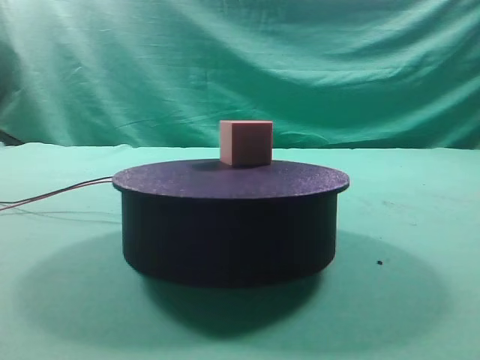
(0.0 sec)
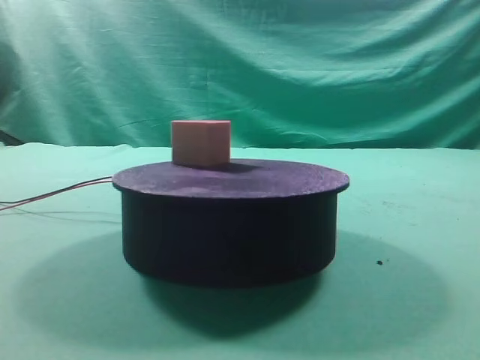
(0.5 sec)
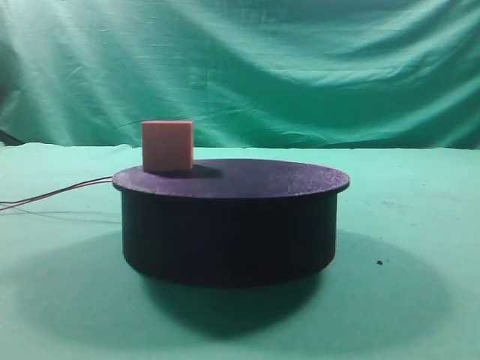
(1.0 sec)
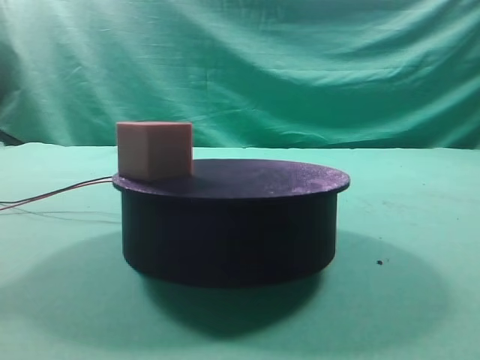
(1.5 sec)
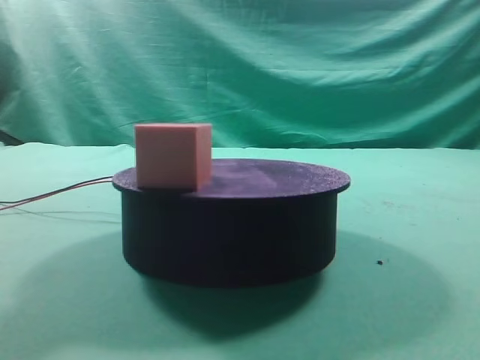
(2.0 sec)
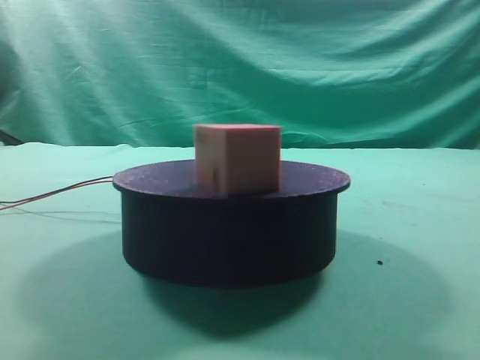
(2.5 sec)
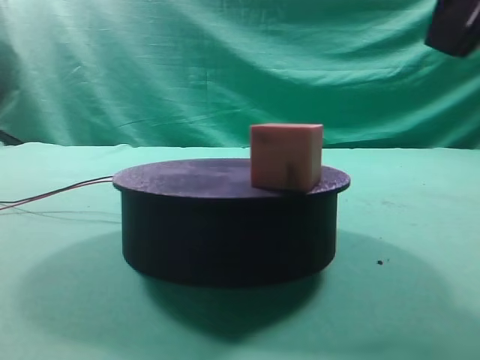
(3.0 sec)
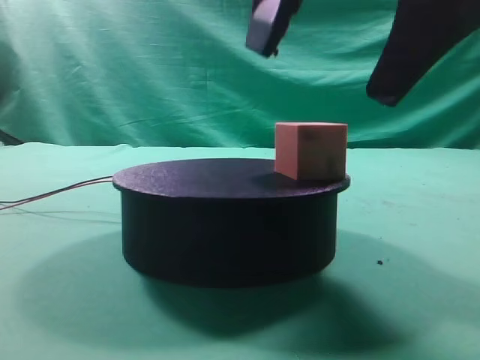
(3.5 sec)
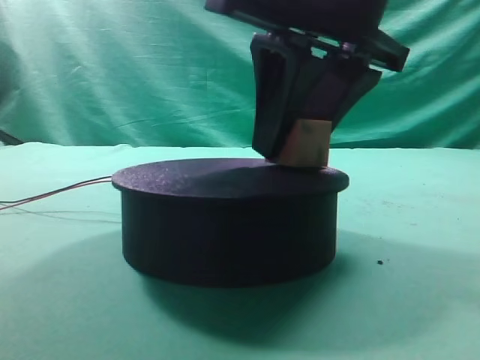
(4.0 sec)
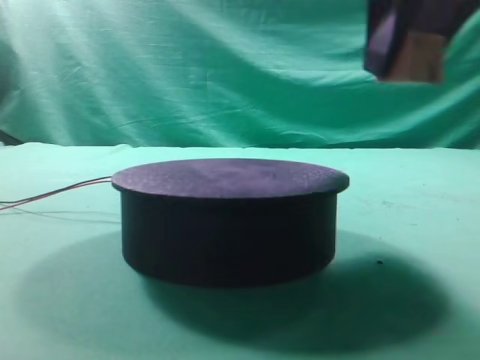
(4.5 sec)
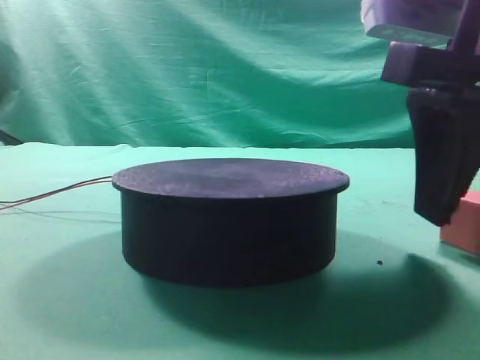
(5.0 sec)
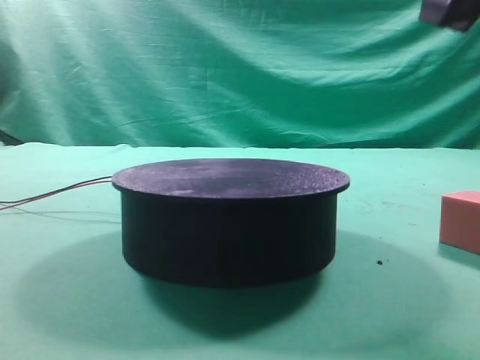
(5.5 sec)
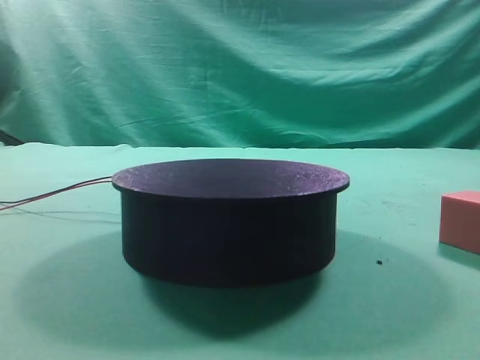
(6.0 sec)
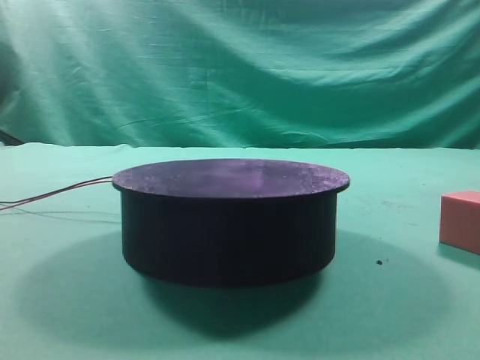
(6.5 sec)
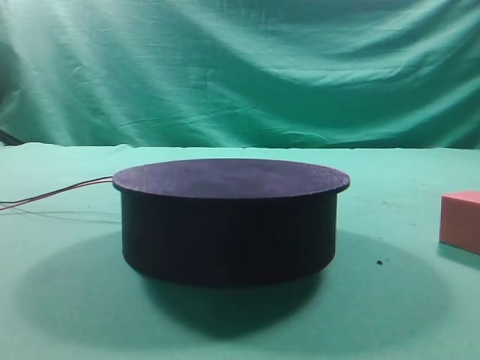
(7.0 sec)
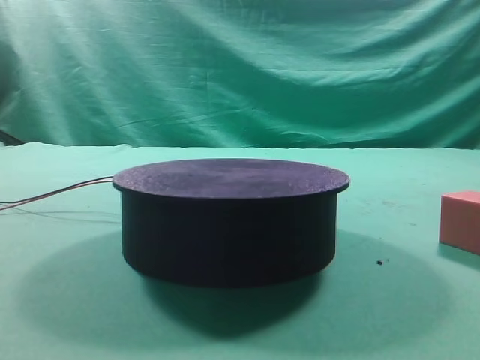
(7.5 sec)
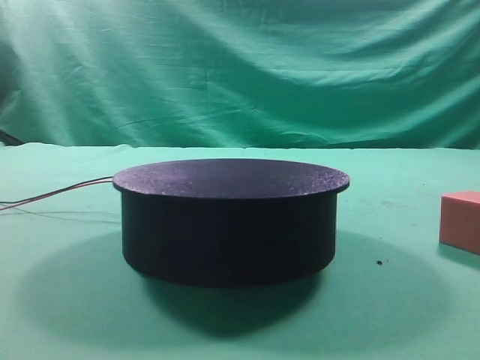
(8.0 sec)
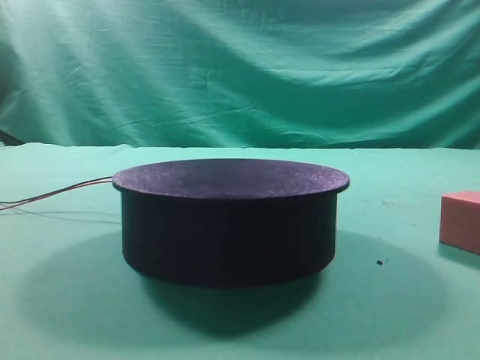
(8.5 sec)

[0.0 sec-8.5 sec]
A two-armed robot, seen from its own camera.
Task of the whole recording: grasp the rotating cube-shaped block on the turntable and place it on the table.
Step, 0.0 sec to 4.0 sec: Grasp the rotating cube-shaped block on the turntable.
Step, 4.5 sec to 5.0 sec: Place the cube on the desk.

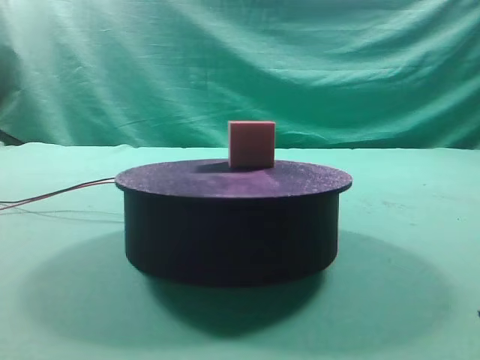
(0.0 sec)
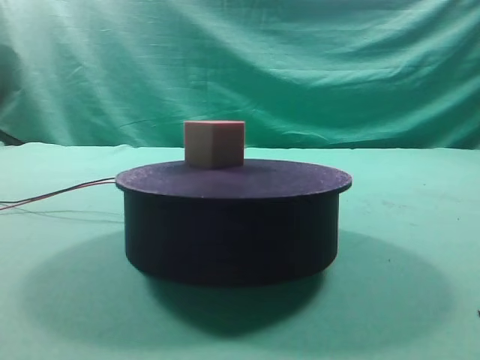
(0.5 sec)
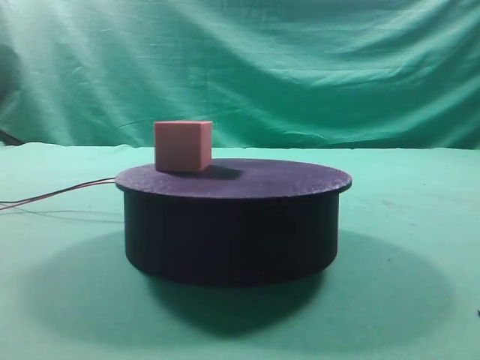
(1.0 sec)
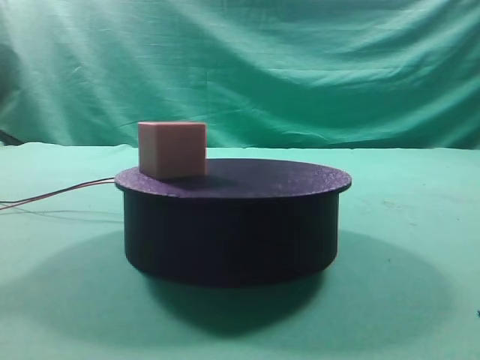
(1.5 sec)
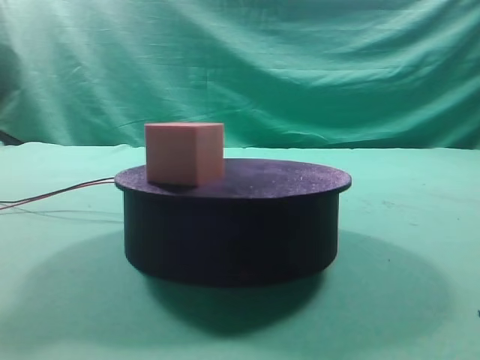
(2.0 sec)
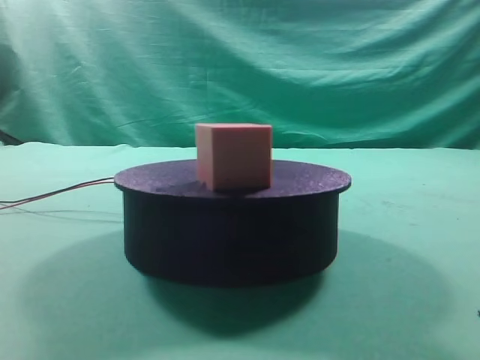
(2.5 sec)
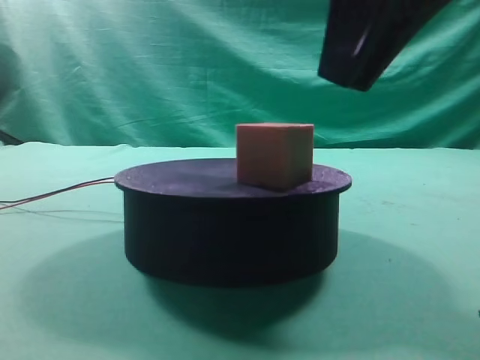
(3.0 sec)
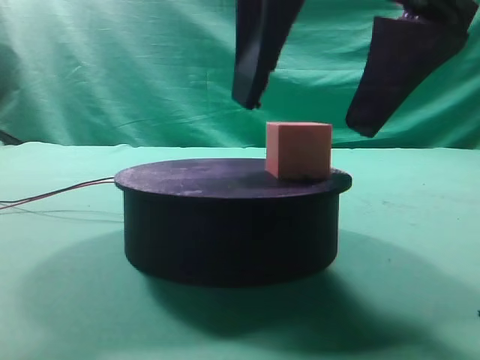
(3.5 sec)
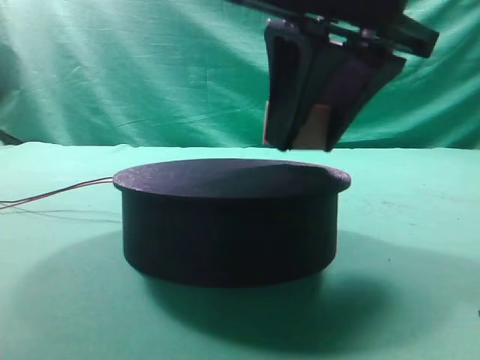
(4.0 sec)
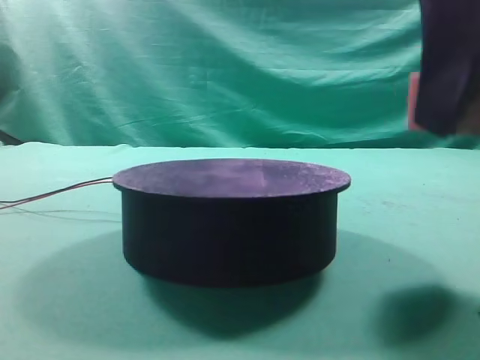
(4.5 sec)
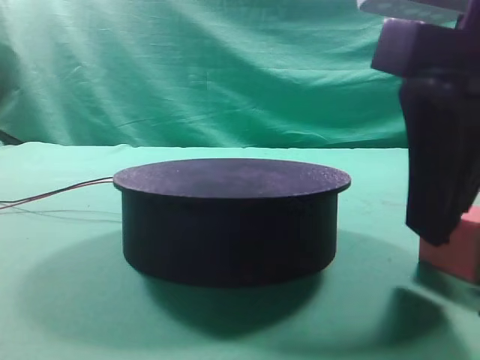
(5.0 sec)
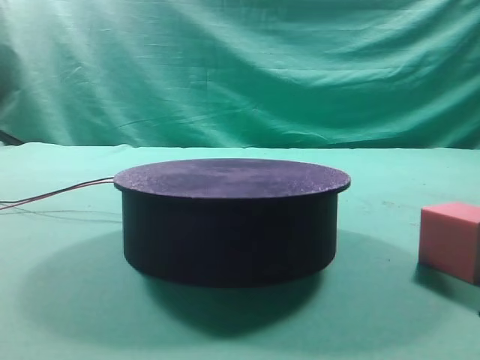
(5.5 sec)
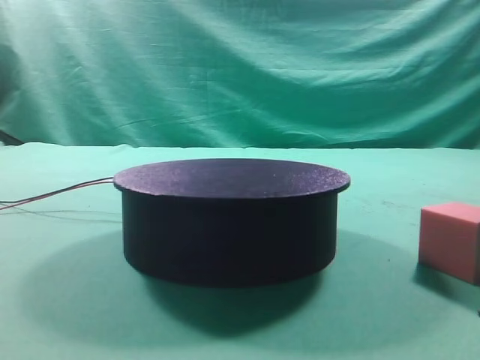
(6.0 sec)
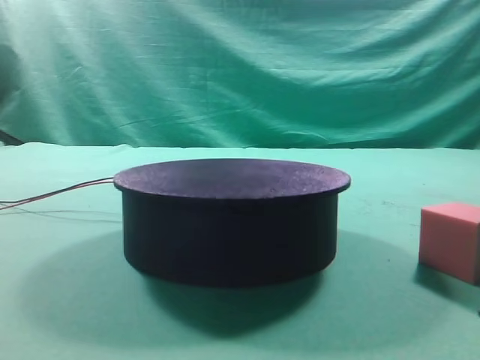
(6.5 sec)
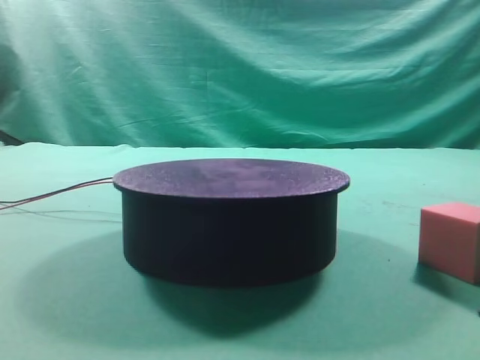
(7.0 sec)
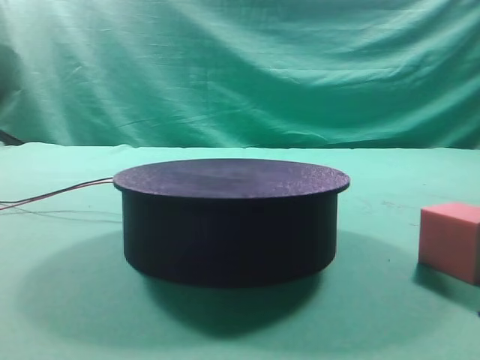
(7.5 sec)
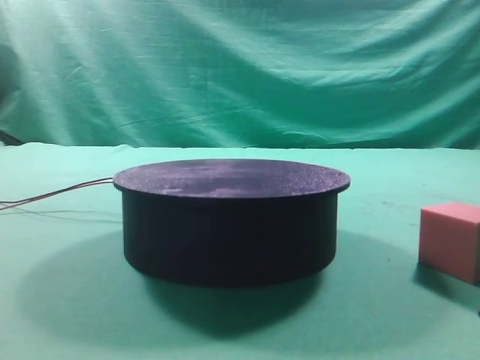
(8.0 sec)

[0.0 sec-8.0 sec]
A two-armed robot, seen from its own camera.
Task of the whole recording: grasp the rotating cube-shaped block on the turntable and place it on the table.
Step, 0.0 sec to 4.0 sec: Grasp the rotating cube-shaped block on the turntable.
Step, 4.5 sec to 5.0 sec: Place the cube on the desk.

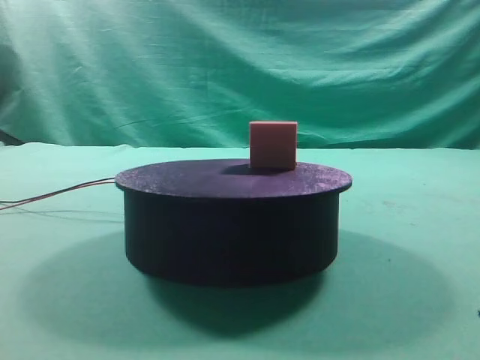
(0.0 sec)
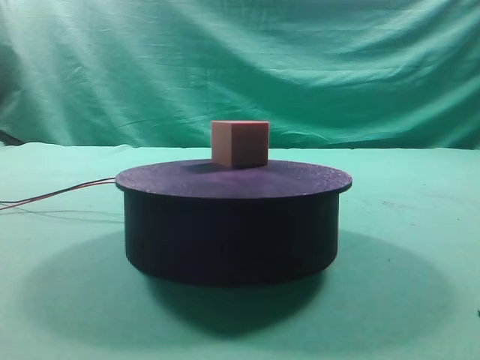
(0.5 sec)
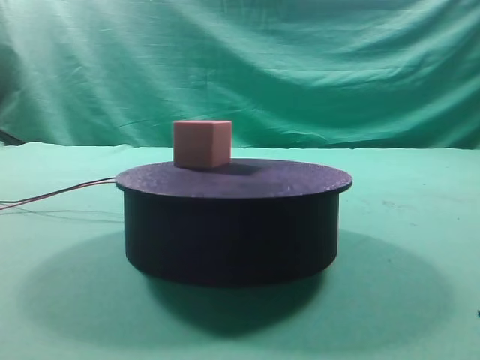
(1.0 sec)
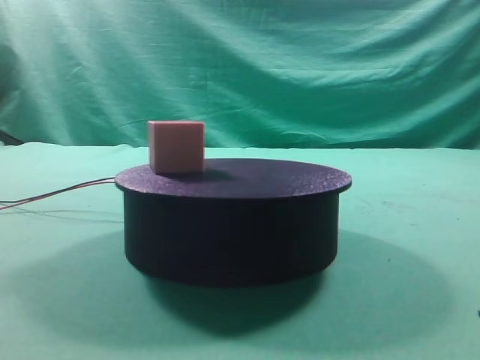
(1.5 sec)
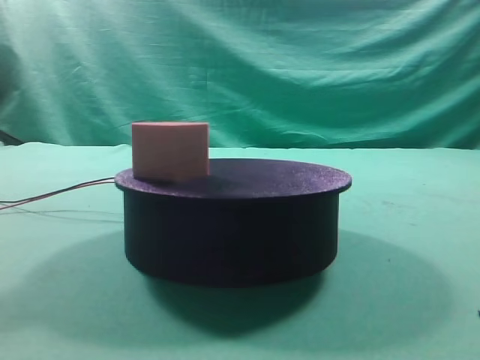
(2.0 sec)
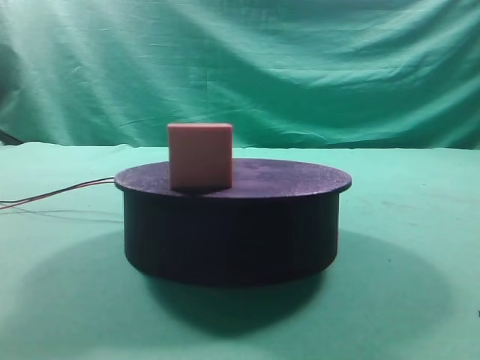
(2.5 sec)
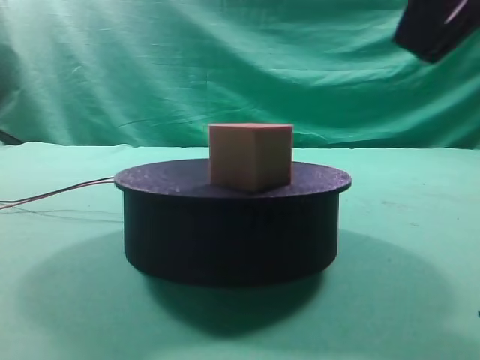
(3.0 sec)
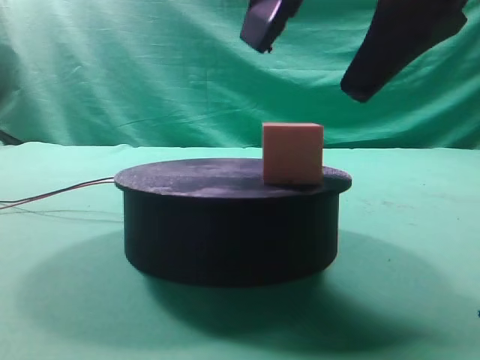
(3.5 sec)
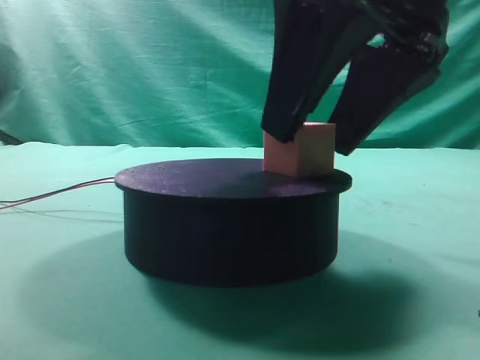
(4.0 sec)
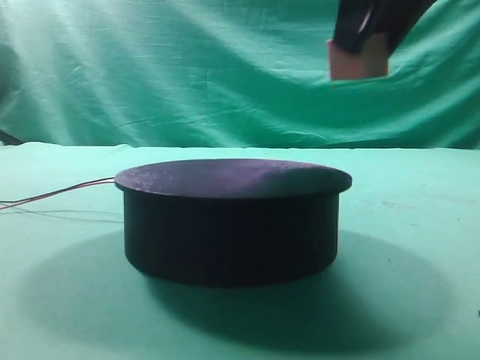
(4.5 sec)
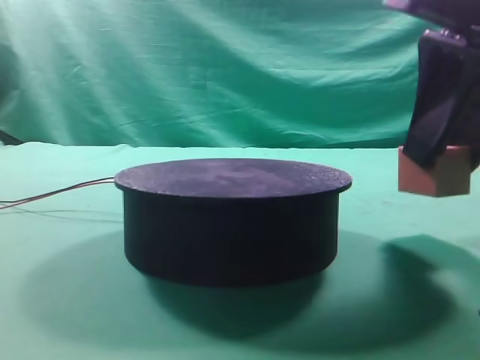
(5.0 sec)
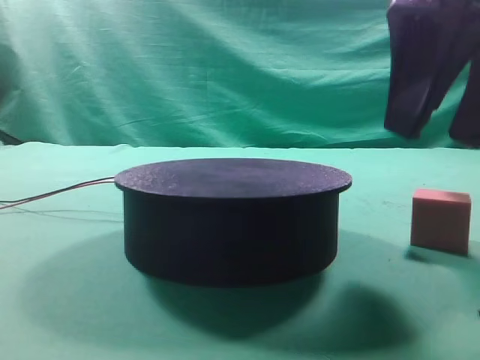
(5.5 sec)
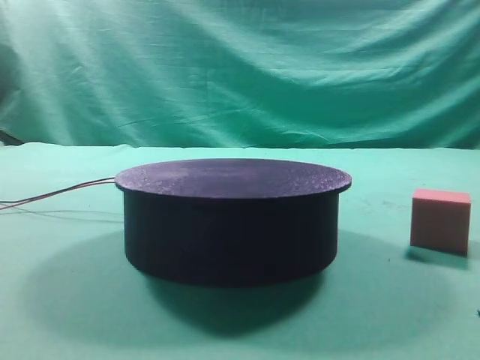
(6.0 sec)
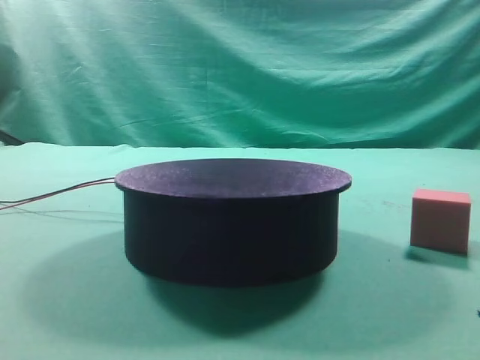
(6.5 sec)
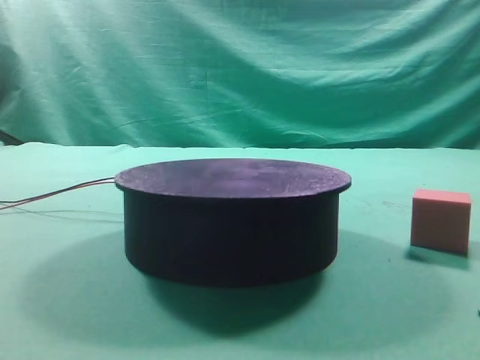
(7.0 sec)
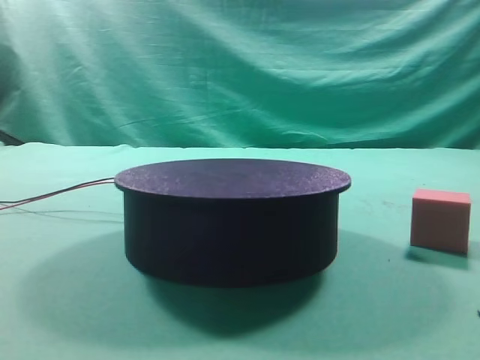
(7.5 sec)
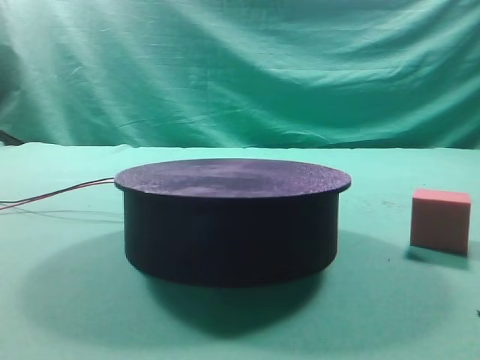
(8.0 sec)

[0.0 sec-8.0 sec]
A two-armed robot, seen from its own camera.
Task of the whole recording: grasp the rotating cube-shaped block on the turntable and place it on the table.
Step, 0.0 sec to 4.0 sec: Grasp the rotating cube-shaped block on the turntable.
Step, 4.5 sec to 5.0 sec: Place the cube on the desk.

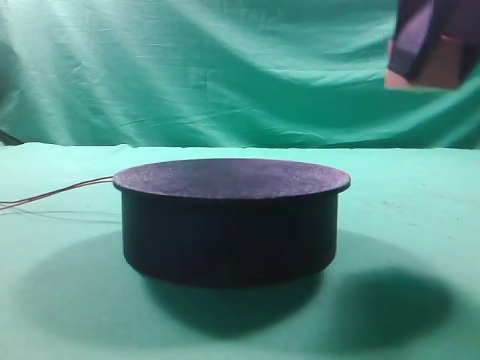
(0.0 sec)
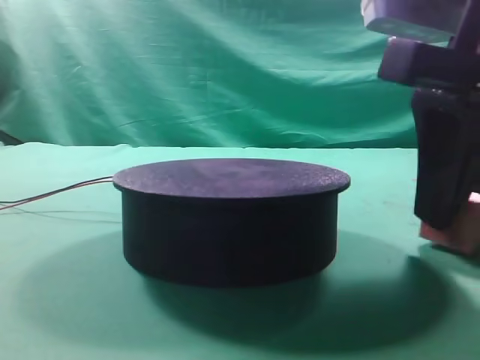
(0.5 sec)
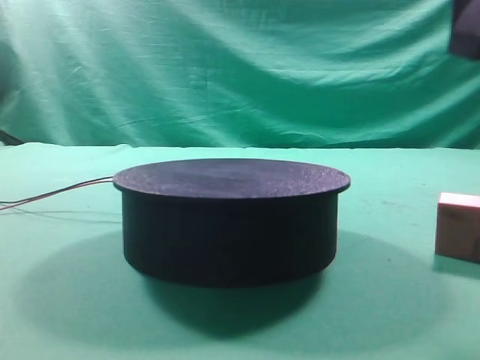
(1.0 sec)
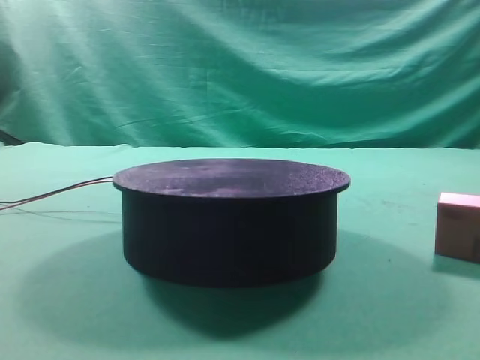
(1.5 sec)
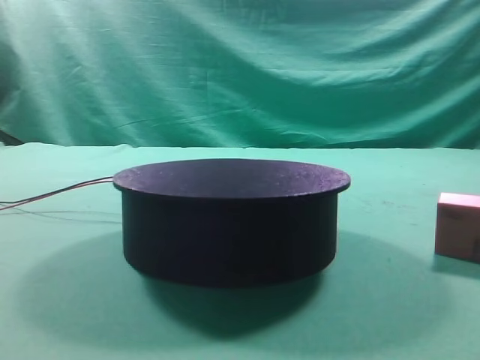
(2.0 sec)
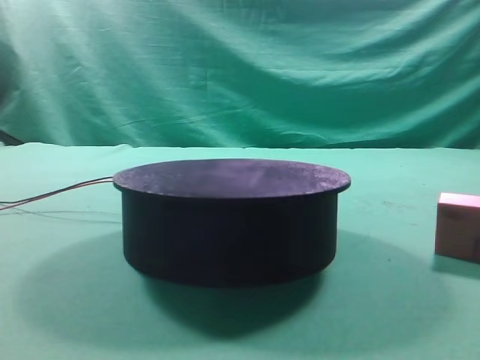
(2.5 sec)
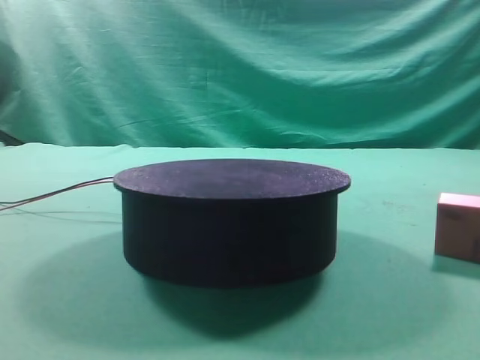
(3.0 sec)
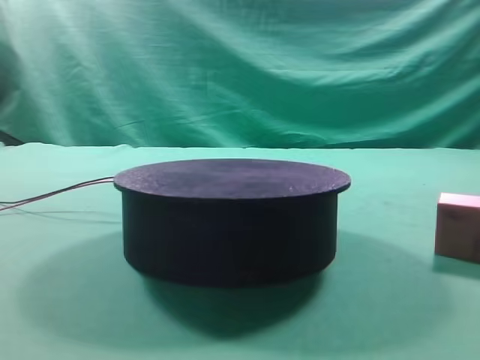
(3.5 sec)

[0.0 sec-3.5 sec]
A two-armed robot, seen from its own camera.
Task of the whole recording: grasp the rotating cube-shaped block on the turntable and place it on the table.
Step, 0.0 sec to 0.5 sec: Place the cube on the desk.
